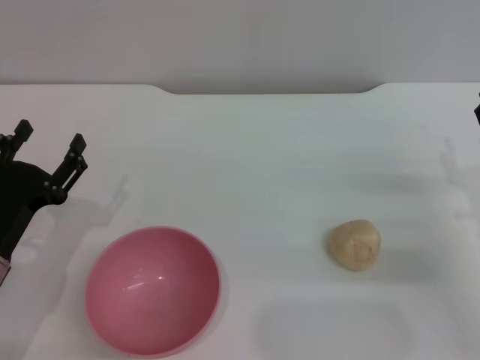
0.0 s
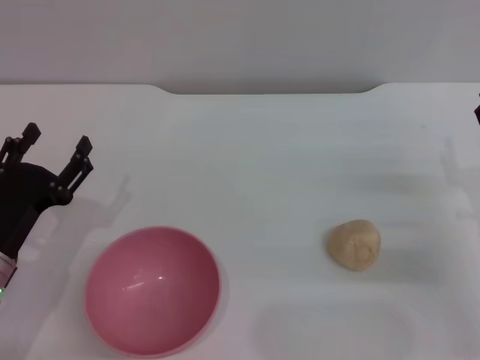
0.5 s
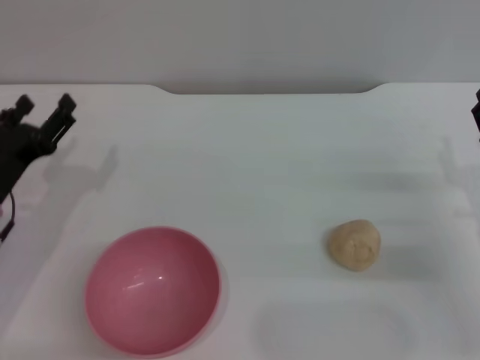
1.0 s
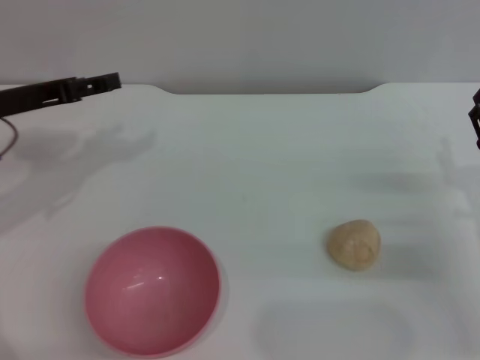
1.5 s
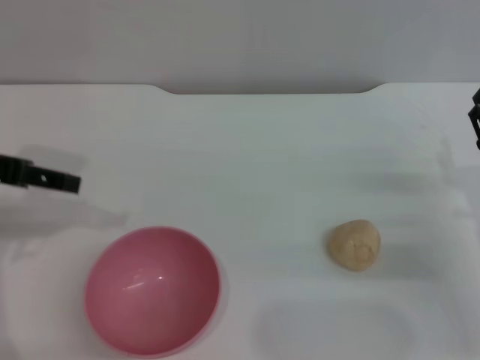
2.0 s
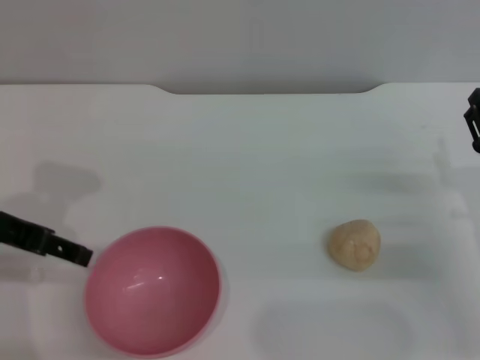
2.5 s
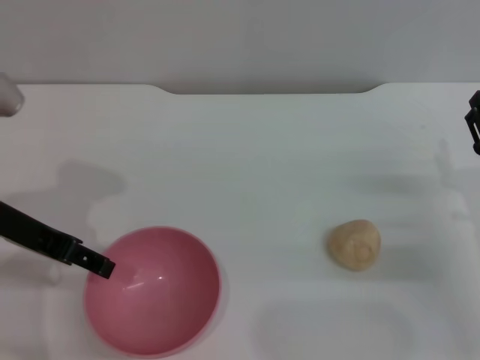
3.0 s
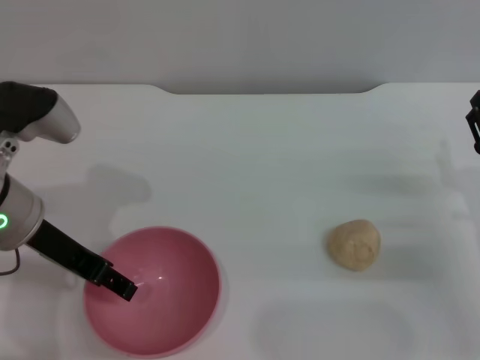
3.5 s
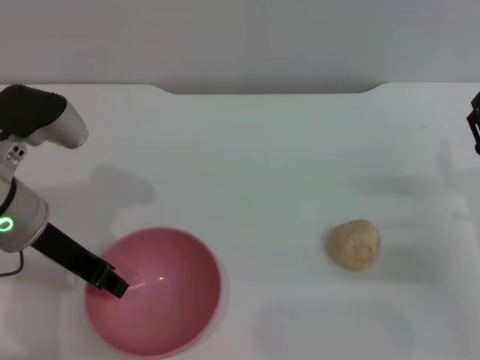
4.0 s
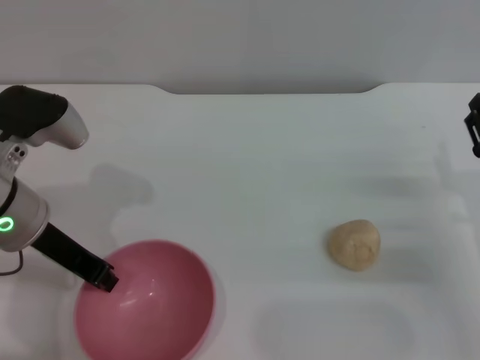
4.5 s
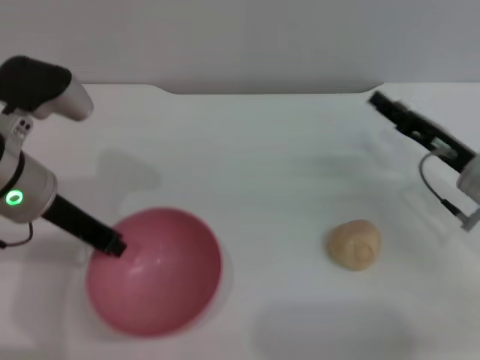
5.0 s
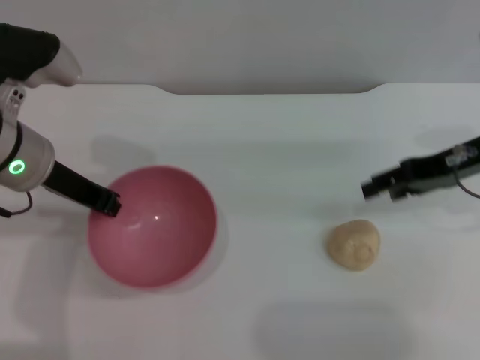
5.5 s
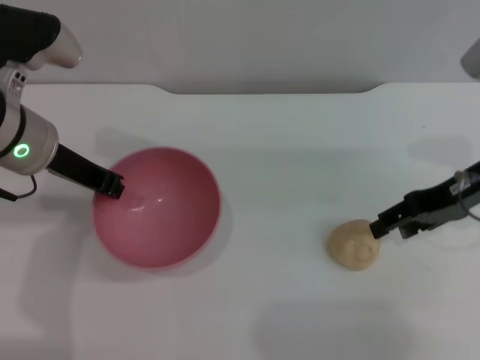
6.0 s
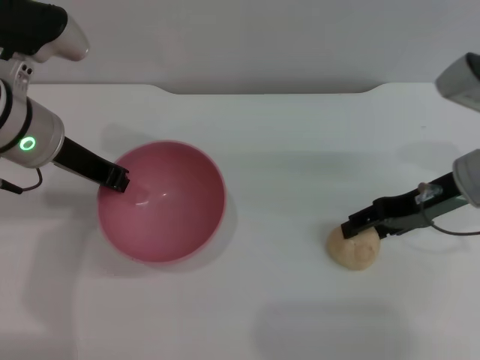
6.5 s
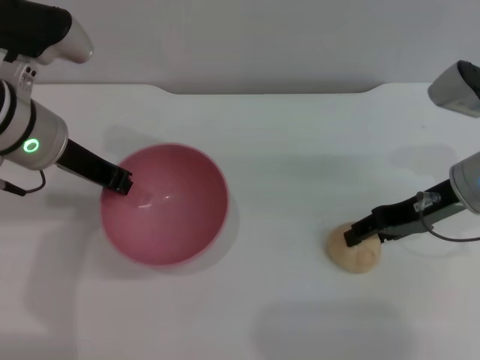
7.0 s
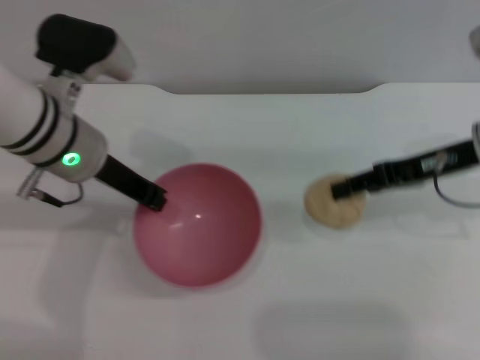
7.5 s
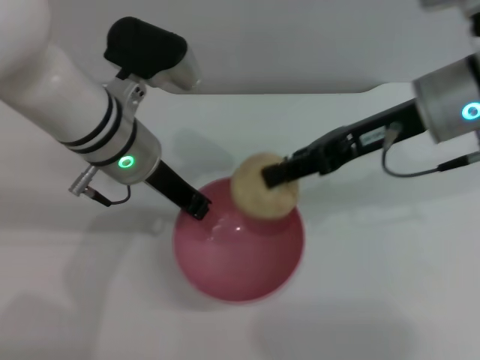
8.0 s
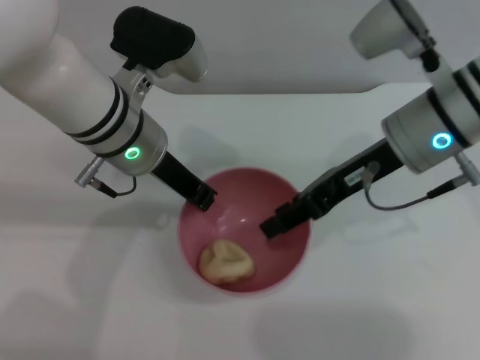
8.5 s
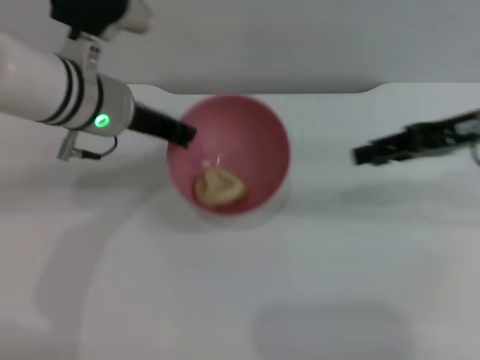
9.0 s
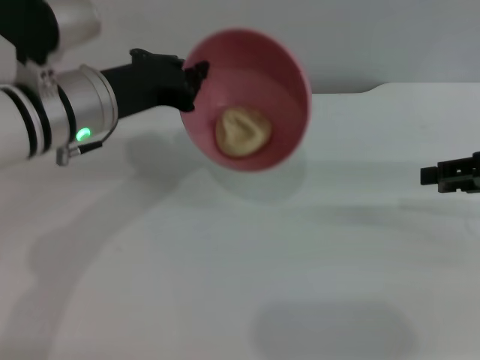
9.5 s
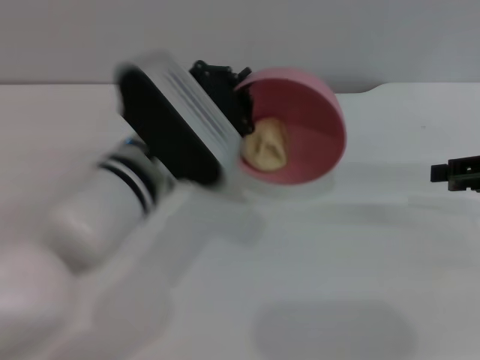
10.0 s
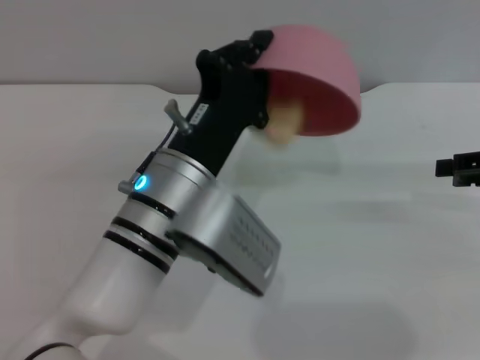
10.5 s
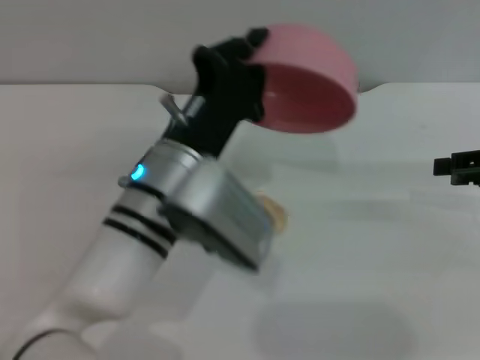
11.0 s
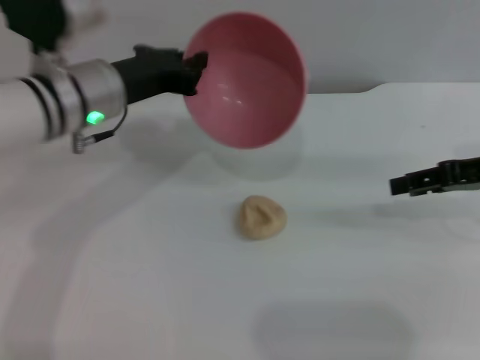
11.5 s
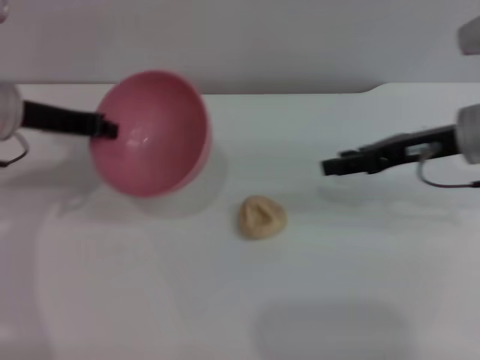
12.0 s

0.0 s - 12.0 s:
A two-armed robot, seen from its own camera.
Task of the whole recording: put the egg yolk pastry into the pink bowl and pour it out repeatedly.
Step, 0.0 s - 5.0 s: Pick up the bowl with the left gripper.
Step, 5.5 s - 7.5 s: Pick up the egg yolk pastry with the right gripper.
Step, 8.0 s - 8.5 s: Place the egg yolk pastry into the bowl.
Step, 9.0 s - 10.5 s: Pour the egg yolk pastry out of bowl.
0.0 s - 2.0 s: The left gripper is displaced upward by approximately 20 cm.
2.0 s - 4.0 s: The left gripper shifts approximately 10 cm to the right and downward, and closes up.
4.0 s - 6.0 s: The left gripper moves approximately 5 cm, and closes. The right gripper travels upward and forward by roughly 15 cm.
6.0 s - 8.0 s: The right gripper moves to the left and upward, some 10 cm, and closes its fingers; the left gripper is displaced to the right by some 10 cm.
8.0 s - 10.0 s: The right gripper goes some 15 cm to the right, and opens up, while the left gripper goes roughly 5 cm backward.
10.0 s - 12.0 s: The right gripper is displaced to the left and forward by about 10 cm, while the left gripper goes some 20 cm to the left and forward.

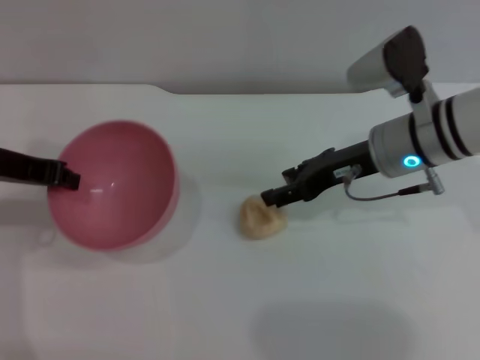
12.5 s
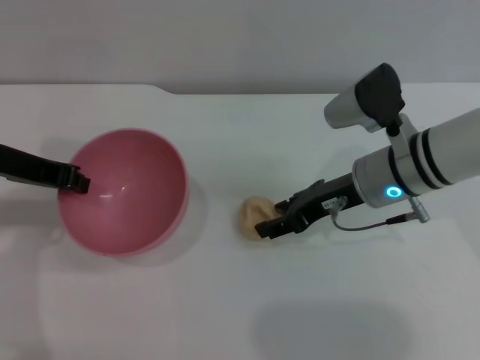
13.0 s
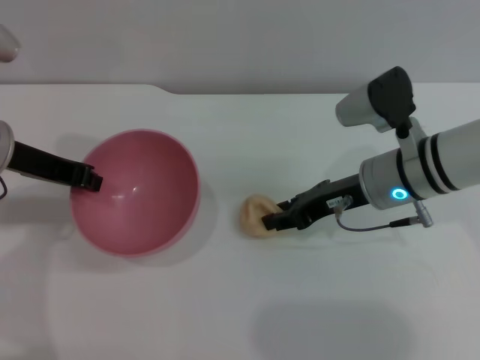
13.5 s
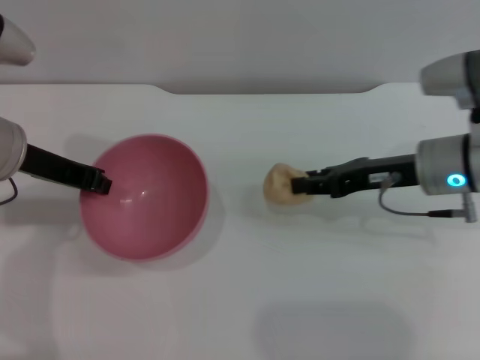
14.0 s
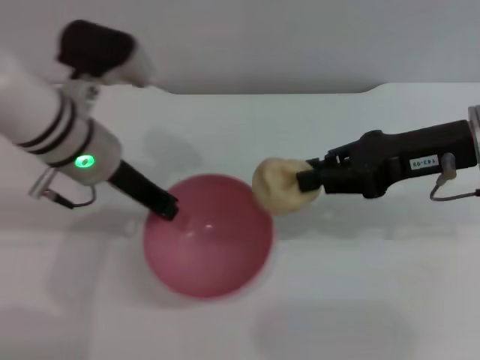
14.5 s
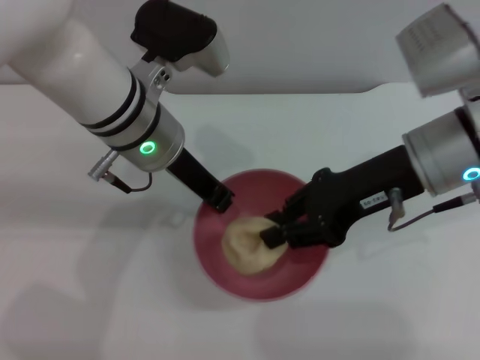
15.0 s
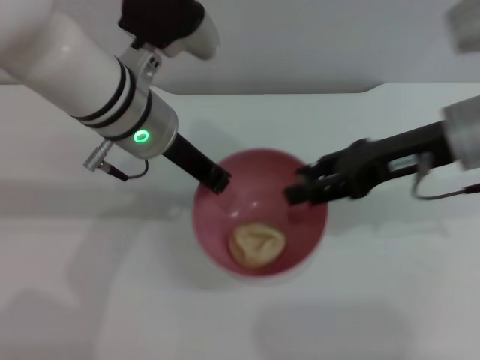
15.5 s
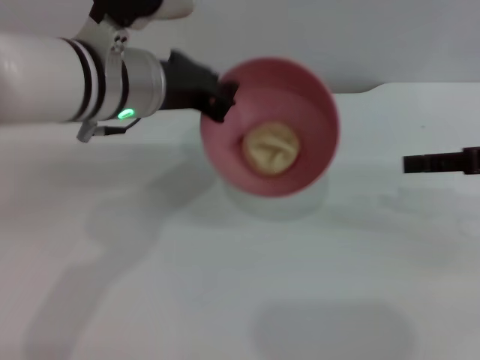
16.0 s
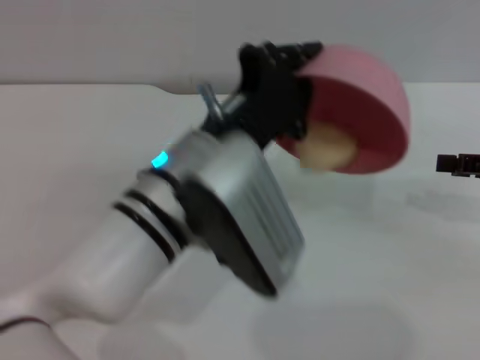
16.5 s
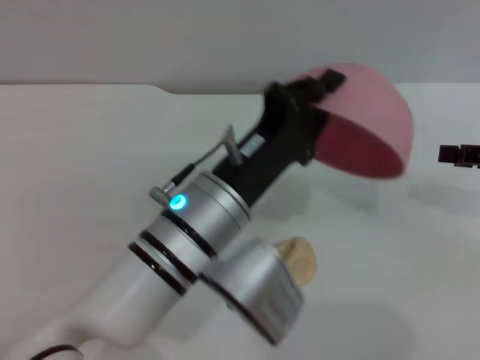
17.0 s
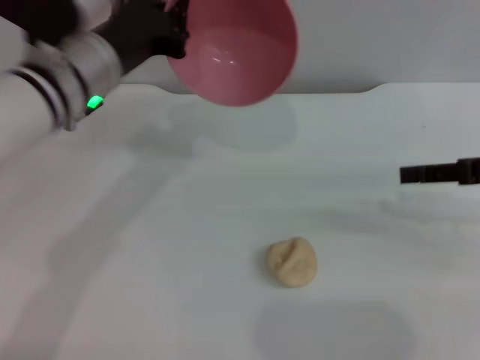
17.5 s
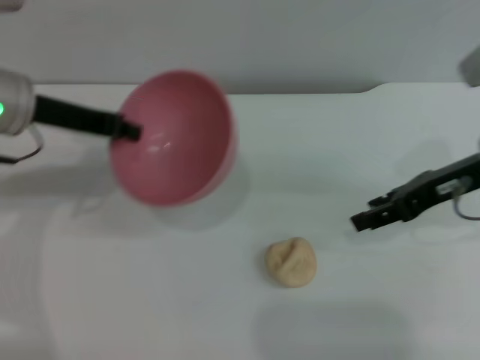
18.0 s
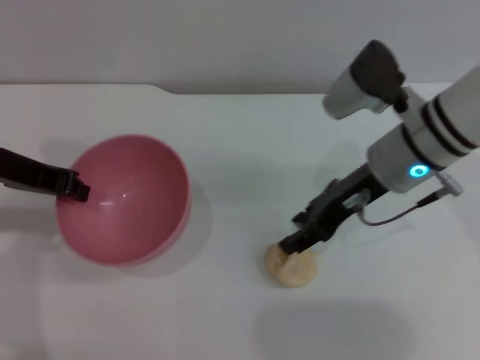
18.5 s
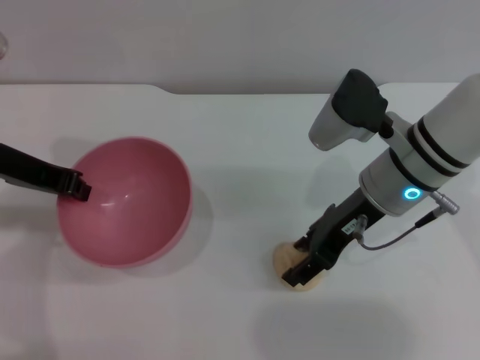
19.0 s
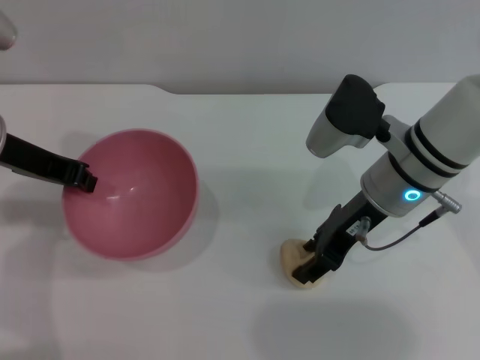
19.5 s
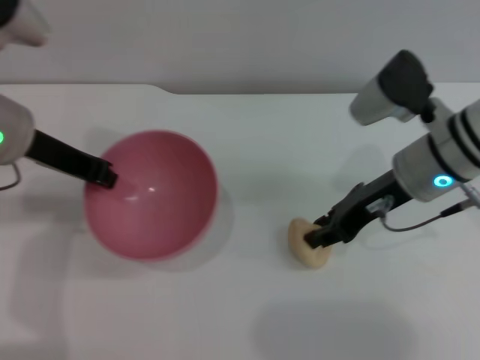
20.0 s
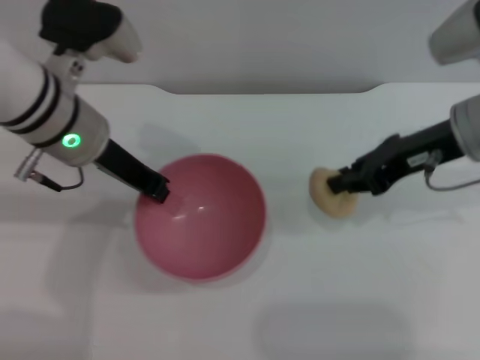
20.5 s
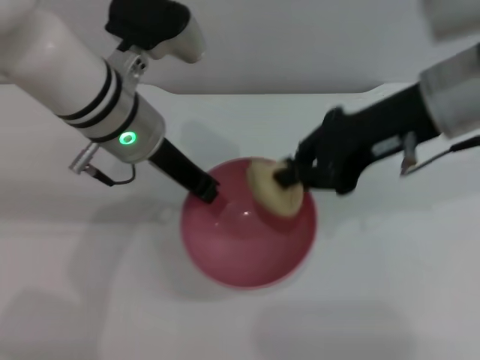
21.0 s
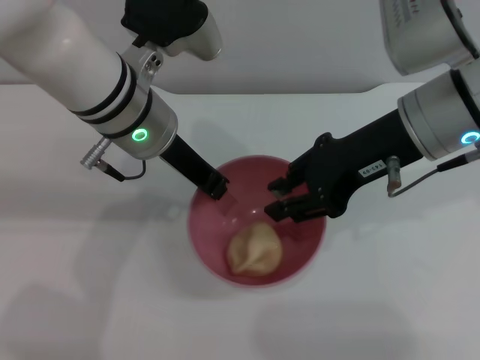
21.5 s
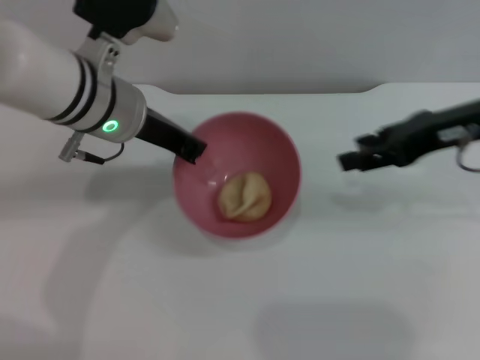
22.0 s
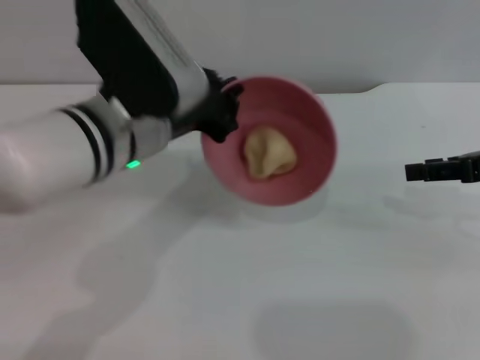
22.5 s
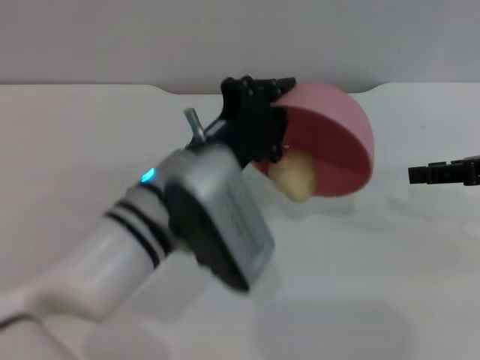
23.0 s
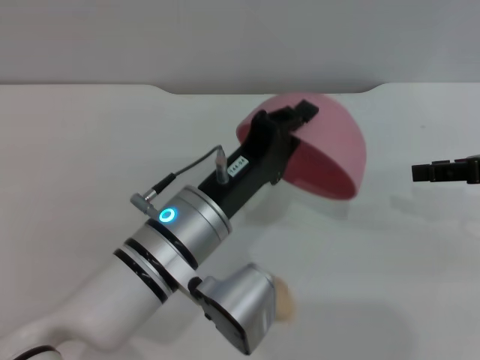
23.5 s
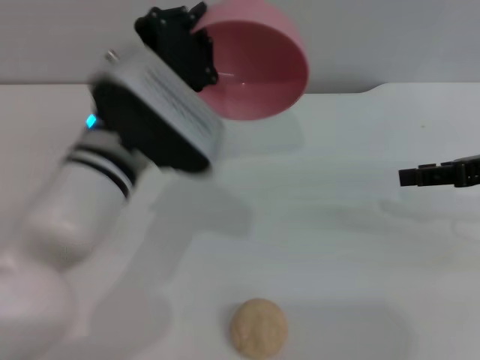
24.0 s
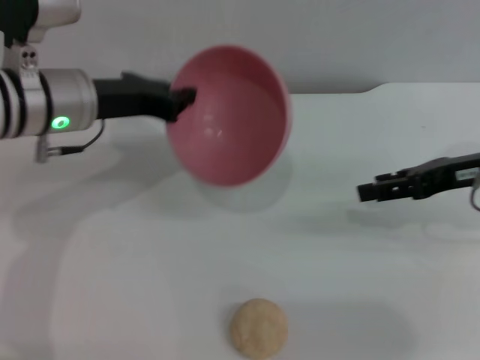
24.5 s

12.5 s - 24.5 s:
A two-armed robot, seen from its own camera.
Task of the whole recording: put the egg yolk pastry into the pink bowl and pour it out repeatedly.
Step, 14.5 s - 15.5 s: Place the egg yolk pastry into the bowl.
Step, 16.0 s - 16.5 s: Pour the egg yolk pastry out of bowl.
Step, 17.0 s - 20.5 s: Pick up the egg yolk pastry with the right gripper.
Step, 21.0 s - 21.5 s: Place the egg yolk pastry into the bowl.
Step, 22.0 s - 23.5 s: Pour the egg yolk pastry out of bowl.
12.5 s - 14.5 s: The right gripper shifts some 10 cm upward and to the right, and closes up. Meanwhile the left gripper moves to the right, about 10 cm.
14.5 s - 16.5 s: The left gripper is displaced backward and to the right by approximately 15 cm. The right gripper shifts some 15 cm to the right, and opens its fingers.
16.5 s - 18.5 s: The two grippers go some 20 cm to the left.
18.5 s - 20.5 s: The left gripper goes approximately 10 cm to the right, while the right gripper travels to the right and upward by some 10 cm, and closes.
20.5 s - 22.5 s: The right gripper heads to the right, covering approximately 10 cm, and opens up. The left gripper travels backward and to the right by some 10 cm.
22.5 s - 24.5 s: The right gripper ends up approximately 5 cm from where it was. Meanwhile the left gripper travels to the left and forward by approximately 10 cm.

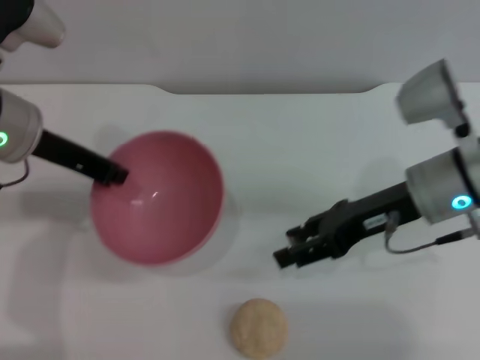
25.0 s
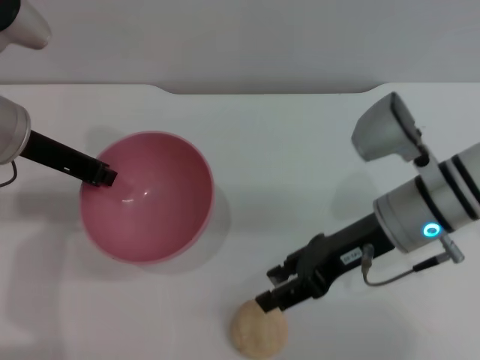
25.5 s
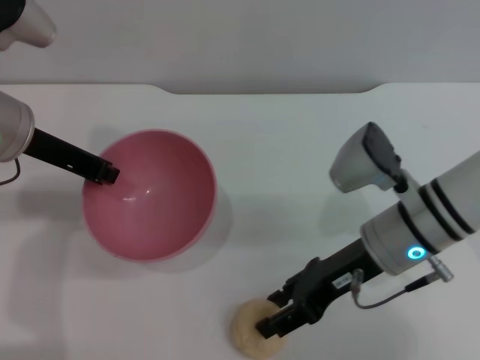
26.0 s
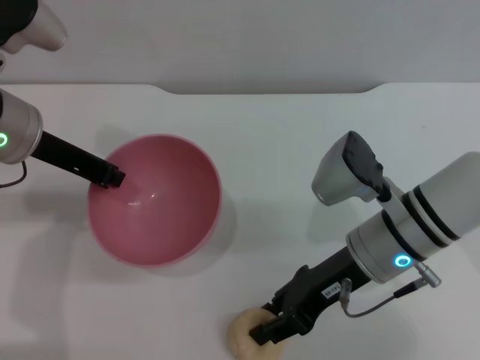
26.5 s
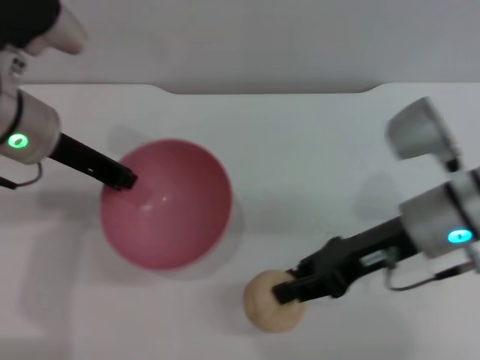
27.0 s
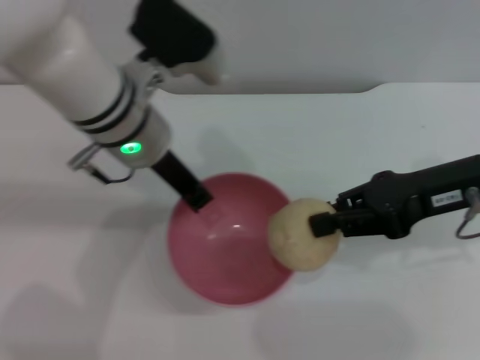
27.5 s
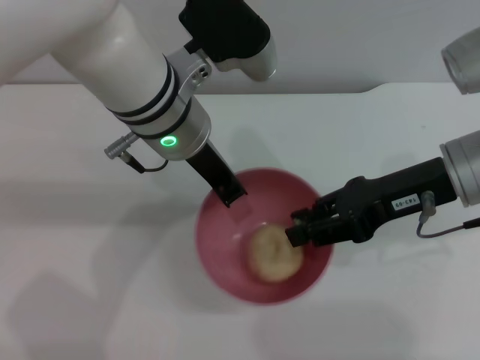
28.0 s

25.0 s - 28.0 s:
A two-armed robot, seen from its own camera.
Task of the whole recording: put the egg yolk pastry into the pink bowl and pour it out repeatedly.
Step, 25.0 s - 27.0 s: Pick up the egg yolk pastry with the right gripper.
25.0 s - 26.5 s: The right gripper moves to the left, roughly 5 cm.
26.5 s - 28.0 s: The left gripper moves to the right, approximately 15 cm, while the right gripper goes about 10 cm upward and to the right, and closes up.
